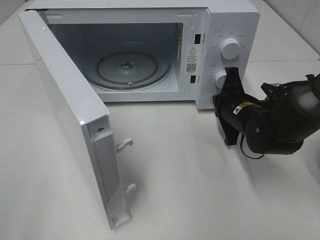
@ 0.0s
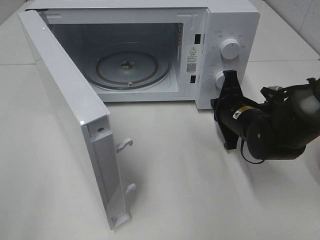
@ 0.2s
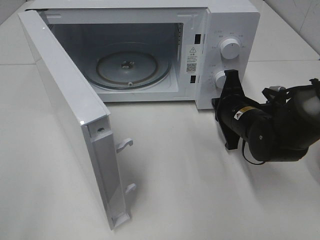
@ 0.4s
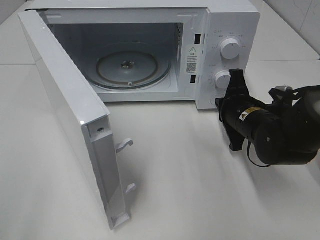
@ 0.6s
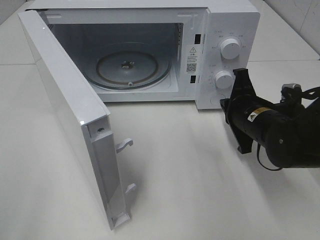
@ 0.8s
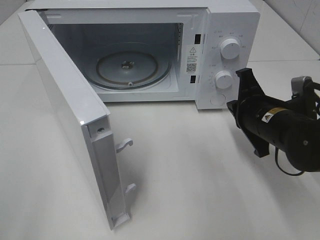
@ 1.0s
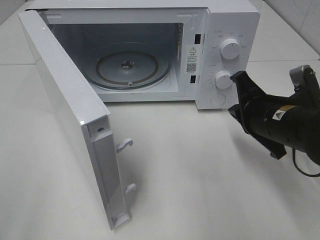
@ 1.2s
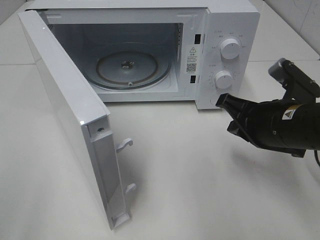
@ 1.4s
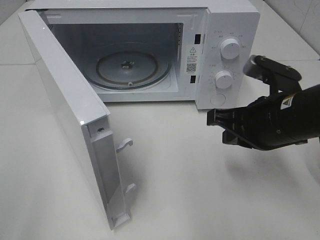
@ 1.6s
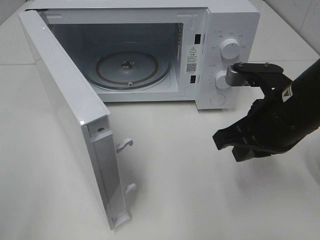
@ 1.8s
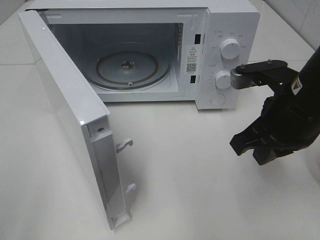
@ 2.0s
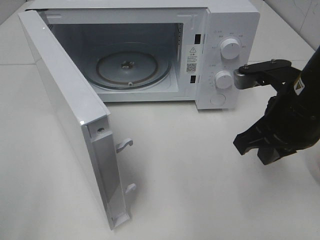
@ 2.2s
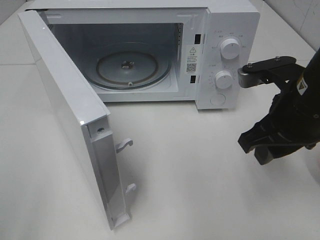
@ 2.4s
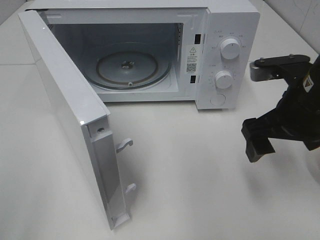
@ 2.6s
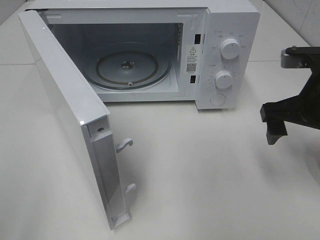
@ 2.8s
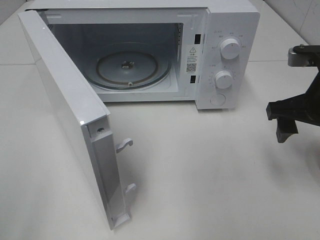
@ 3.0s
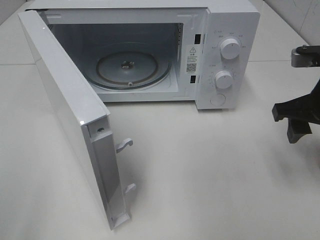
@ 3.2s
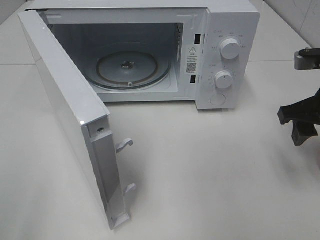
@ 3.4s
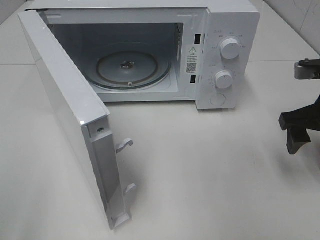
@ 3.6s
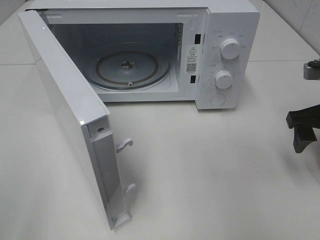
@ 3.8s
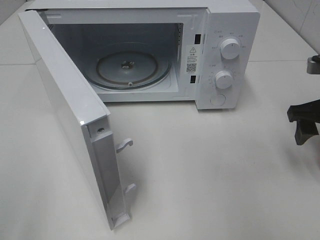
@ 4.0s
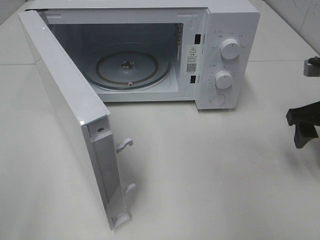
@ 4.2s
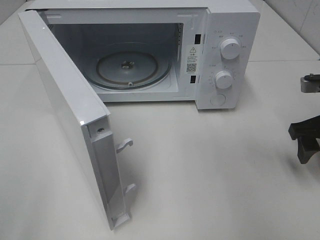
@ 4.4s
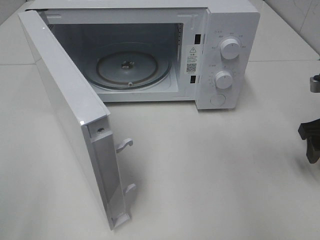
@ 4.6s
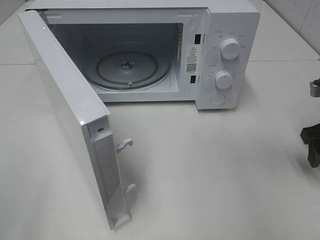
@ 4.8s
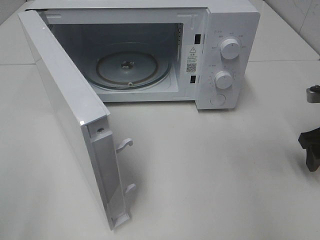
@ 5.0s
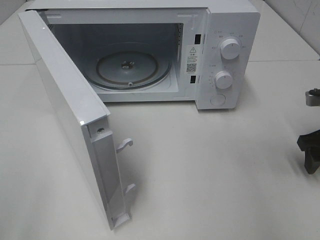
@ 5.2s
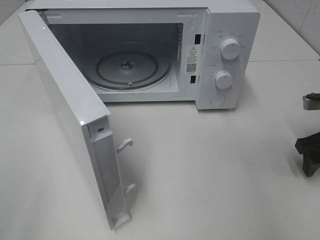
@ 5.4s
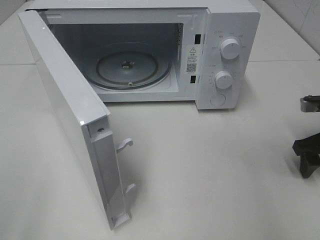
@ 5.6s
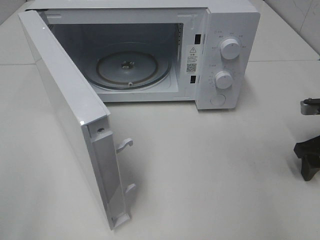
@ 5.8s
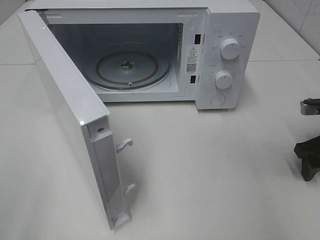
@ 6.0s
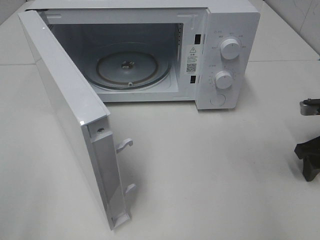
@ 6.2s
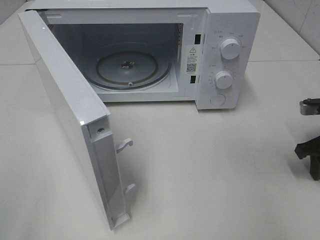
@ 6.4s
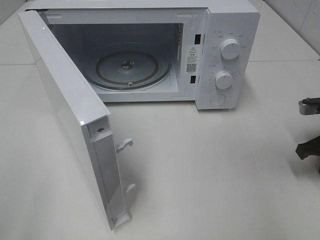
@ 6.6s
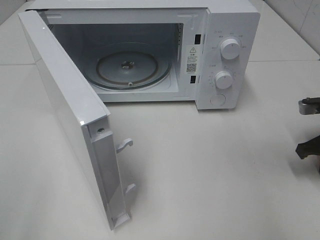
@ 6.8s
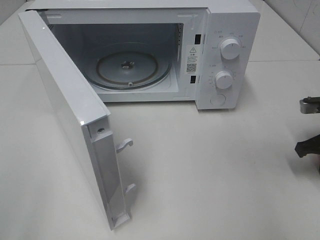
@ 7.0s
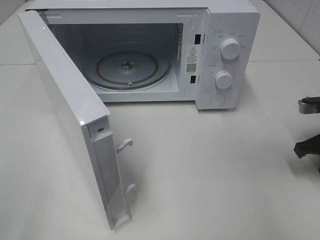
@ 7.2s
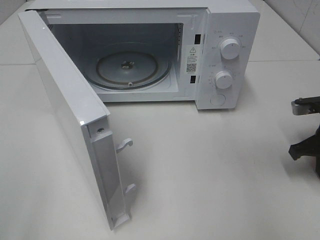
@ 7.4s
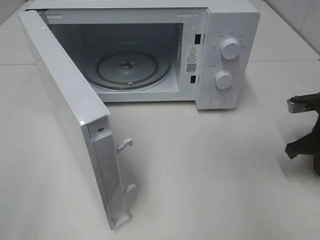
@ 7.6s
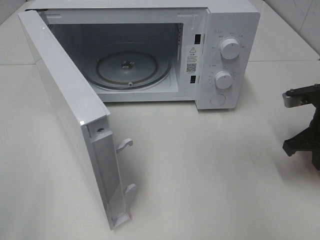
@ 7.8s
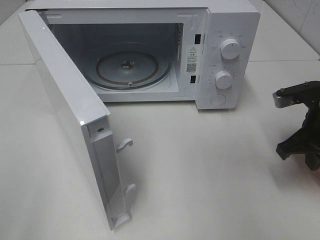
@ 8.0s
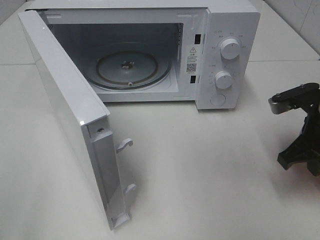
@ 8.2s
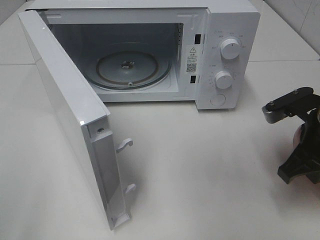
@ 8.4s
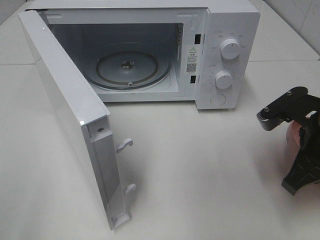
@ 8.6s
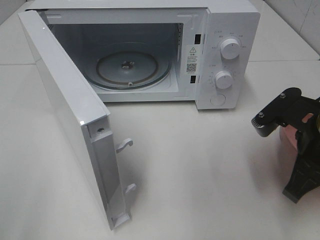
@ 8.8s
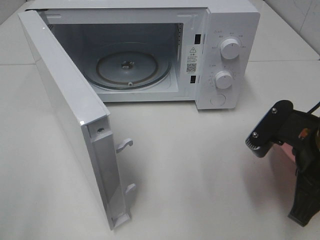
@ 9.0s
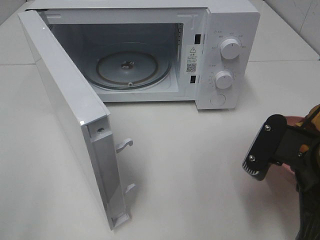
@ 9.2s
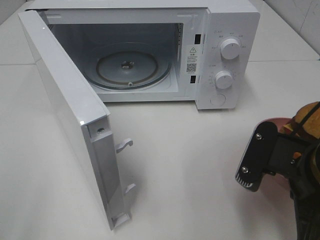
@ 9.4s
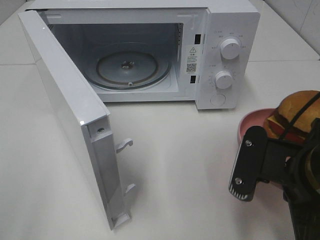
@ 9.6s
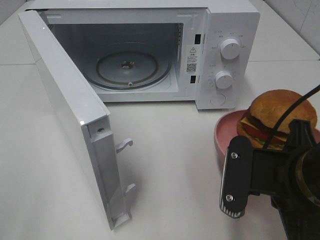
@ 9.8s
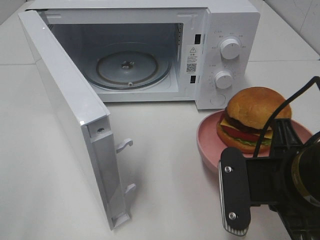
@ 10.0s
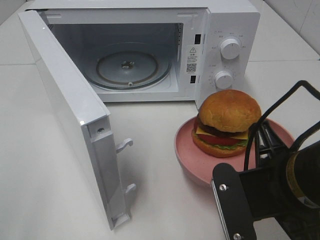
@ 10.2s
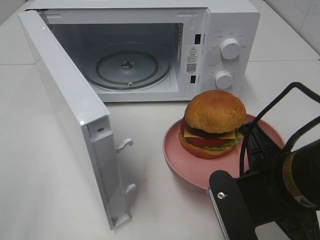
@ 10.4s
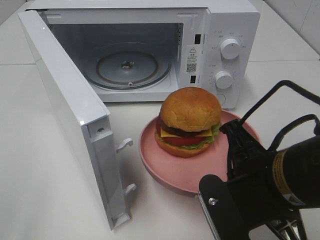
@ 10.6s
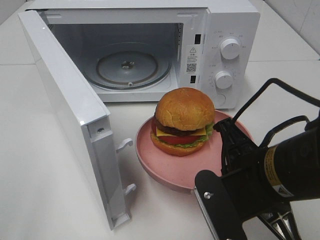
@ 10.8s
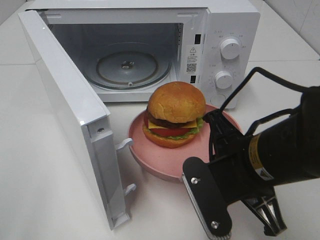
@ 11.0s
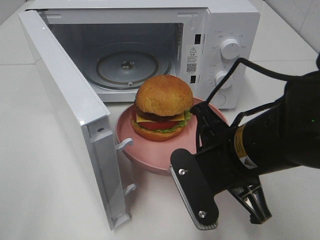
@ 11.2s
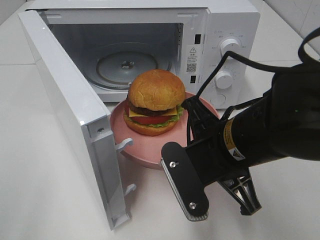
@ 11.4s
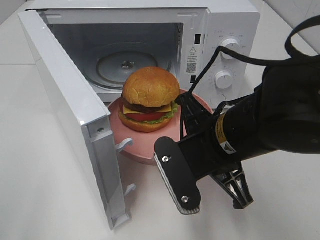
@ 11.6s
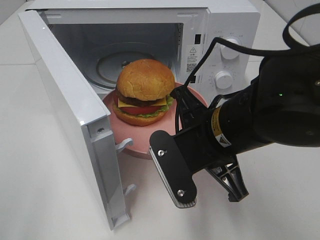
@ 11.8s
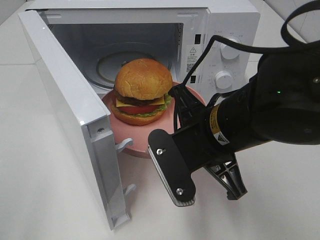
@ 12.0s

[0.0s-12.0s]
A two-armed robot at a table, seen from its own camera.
Task of the whole recording: Heat the burger.
Step, 0.2s to 6.6s: Right hand: grab the plate with the hamburger.
0.0s to 1.6s: The right gripper moves backward and upward, roughly 15 cm.
1.6s to 3.0s: The right gripper goes some 5 cm to the right, and opens up.
3.0s to 4.4s: The right gripper heads to the right, covering approximately 5 cm.
4.4s to 6.0s: The right gripper travels downward by about 5 cm.
6.0s to 7.6s: The right gripper closes up.
7.6s to 9.0s: The right gripper moves backward, to the left and upward, approximately 15 cm.
9.0s to 10.4s: The right gripper goes approximately 5 cm to the left.
10.4s to 12.0s: The right gripper heads to the left and forward, covering some 10 cm.

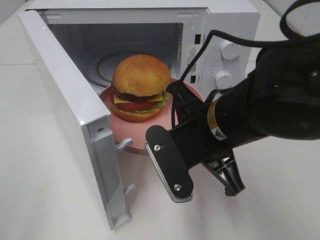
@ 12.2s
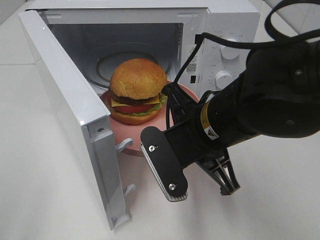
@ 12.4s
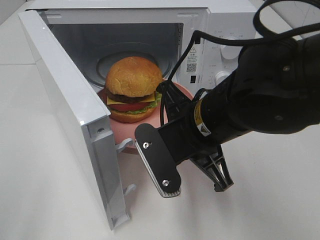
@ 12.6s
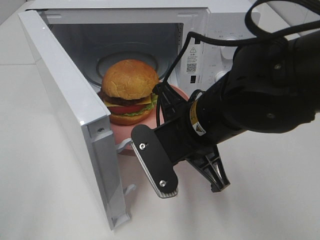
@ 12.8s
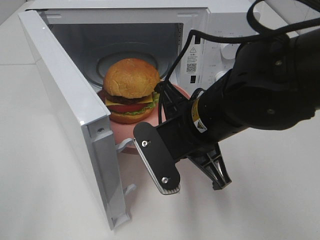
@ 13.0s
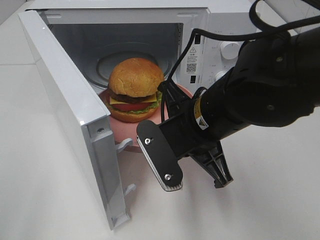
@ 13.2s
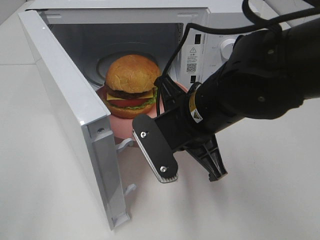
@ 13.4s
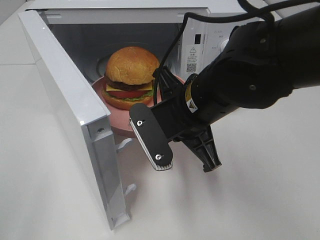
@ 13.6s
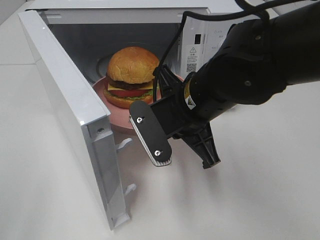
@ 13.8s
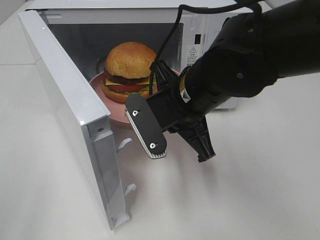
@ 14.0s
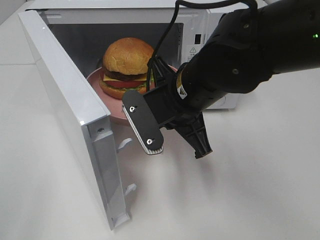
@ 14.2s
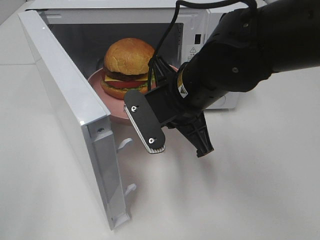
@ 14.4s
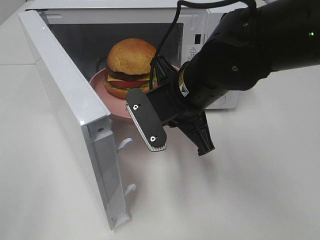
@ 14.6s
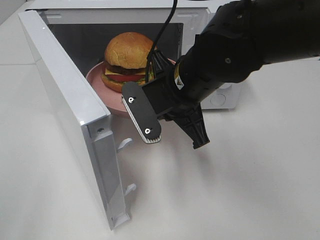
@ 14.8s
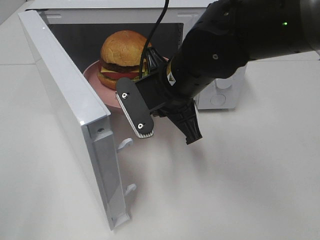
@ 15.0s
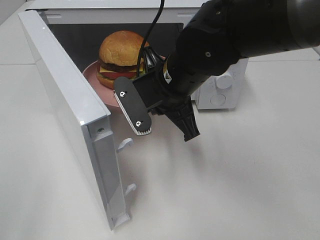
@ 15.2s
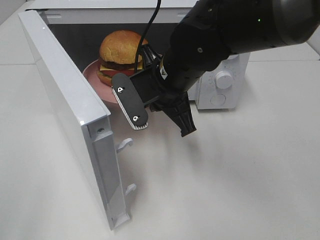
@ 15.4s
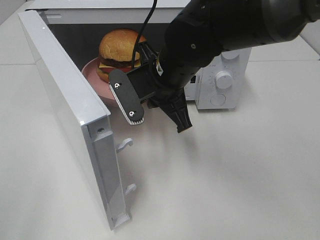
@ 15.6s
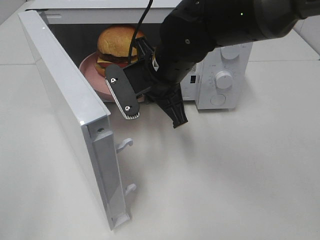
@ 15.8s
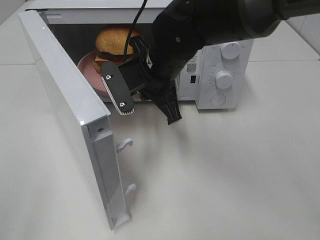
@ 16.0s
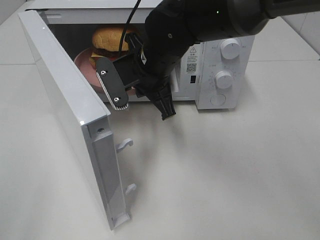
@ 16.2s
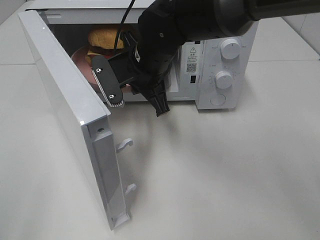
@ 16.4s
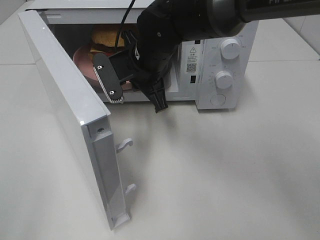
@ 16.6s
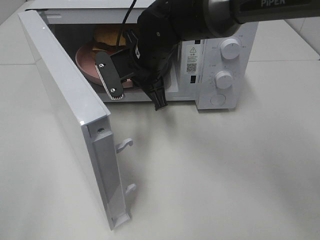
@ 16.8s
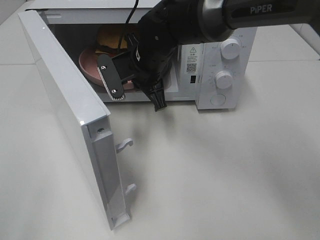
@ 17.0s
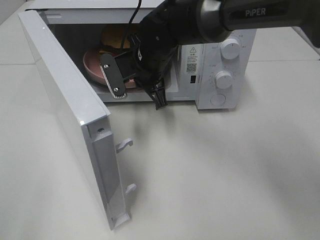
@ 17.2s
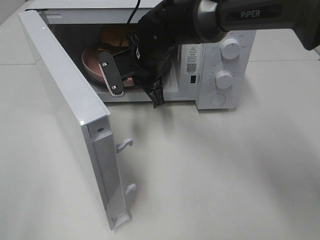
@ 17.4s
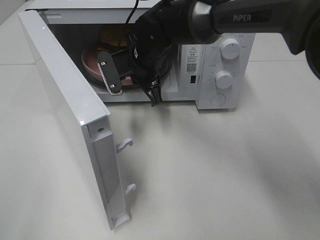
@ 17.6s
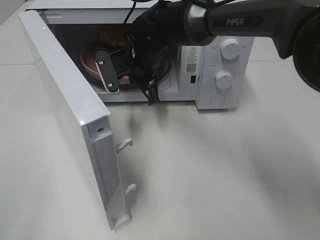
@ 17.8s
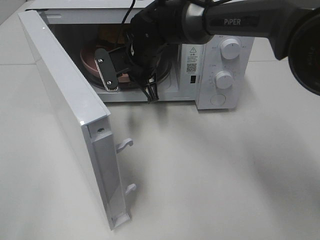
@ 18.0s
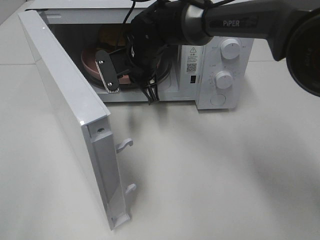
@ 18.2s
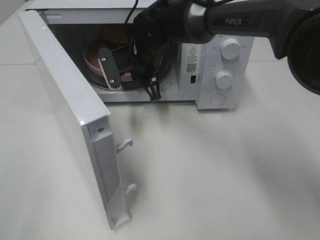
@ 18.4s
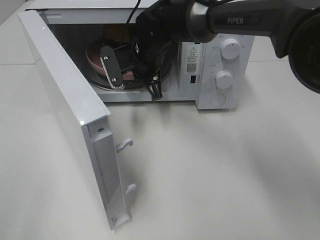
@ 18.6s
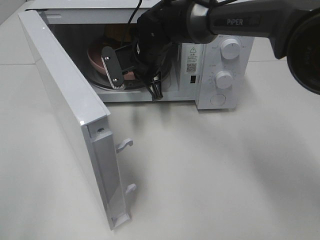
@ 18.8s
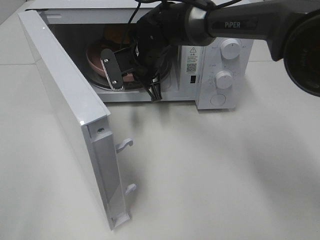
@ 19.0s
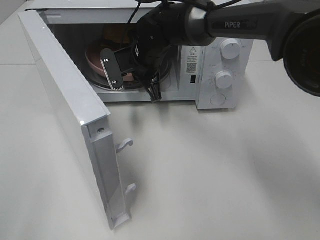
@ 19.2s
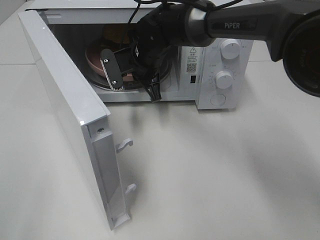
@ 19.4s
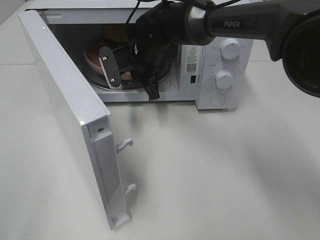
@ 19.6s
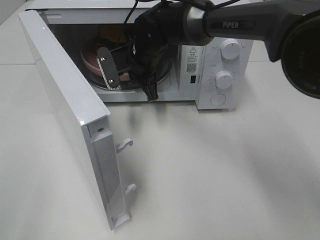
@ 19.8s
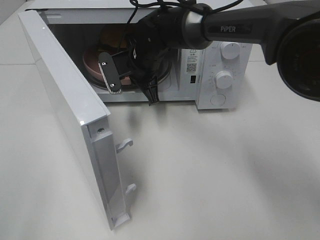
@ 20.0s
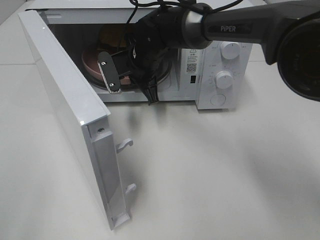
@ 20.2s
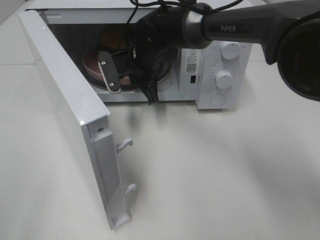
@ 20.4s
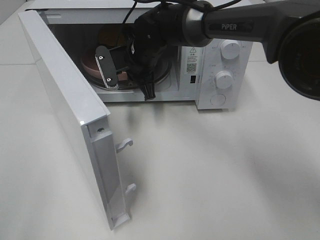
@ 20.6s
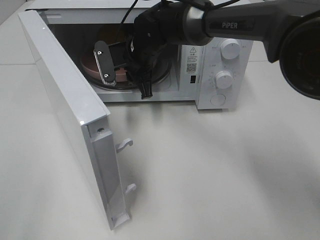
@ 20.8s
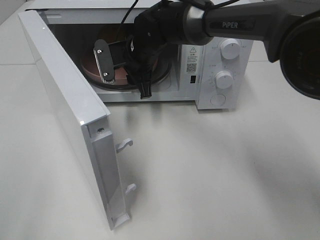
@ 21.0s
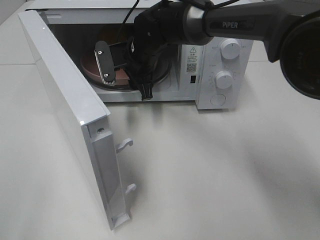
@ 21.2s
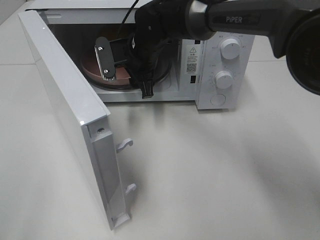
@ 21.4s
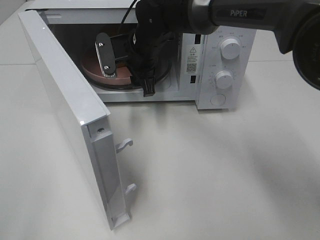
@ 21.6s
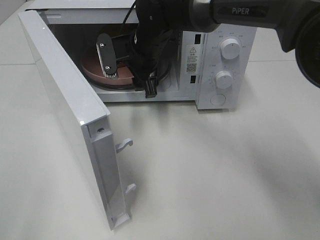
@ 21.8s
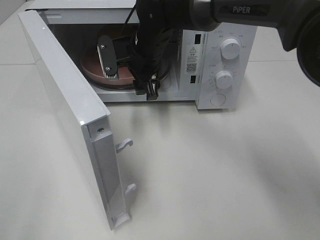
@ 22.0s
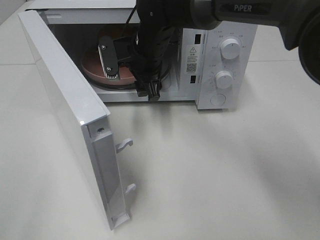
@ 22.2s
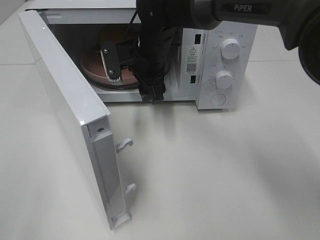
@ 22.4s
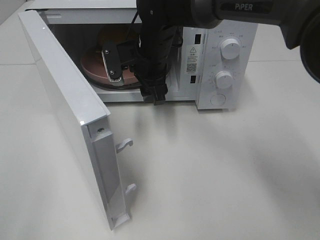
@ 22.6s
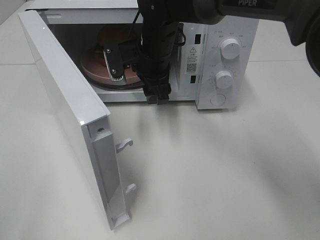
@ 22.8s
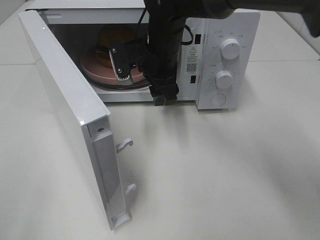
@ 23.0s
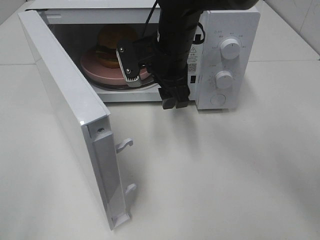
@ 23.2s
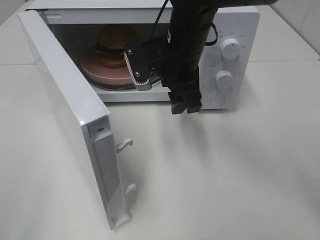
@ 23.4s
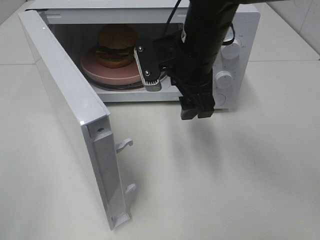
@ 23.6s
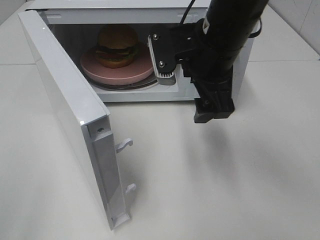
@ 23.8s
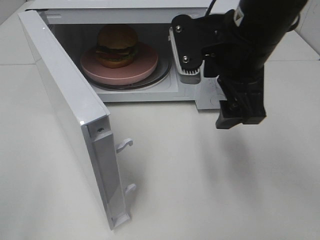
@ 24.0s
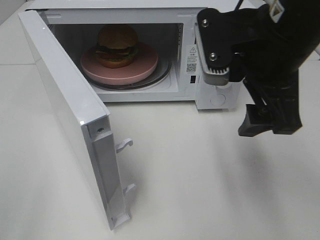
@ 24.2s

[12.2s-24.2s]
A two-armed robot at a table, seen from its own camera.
Task of the whole recording: Heat the burger.
Step, 12.2s to 20.8s: Right hand: place the plate in the microwave.
12.2s to 13.8s: The right gripper moves approximately 5 cm.
13.8s to 15.2s: The right gripper ends up approximately 5 cm from where it was.
15.2s to 16.6s: The right gripper heads forward, covering approximately 5 cm.
16.6s to 18.2s: The right gripper travels forward by some 5 cm.
18.2s to 19.8s: Neither gripper changes place.
19.8s to 21.2s: The right gripper opens.
21.2s to 22.6s: The grippers stay close to where they were, moving slightly.
22.6s to 24.2s: The right gripper shifts some 25 cm backward, to the right and upward.
